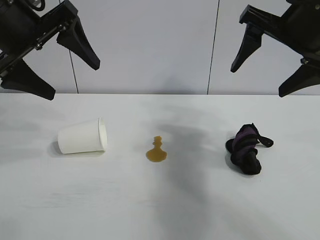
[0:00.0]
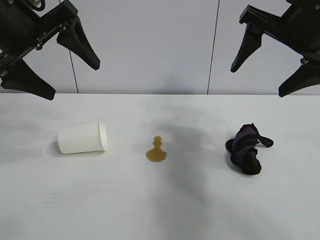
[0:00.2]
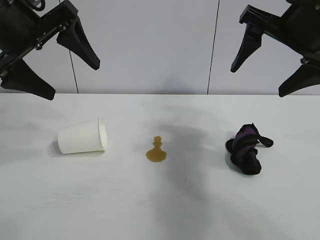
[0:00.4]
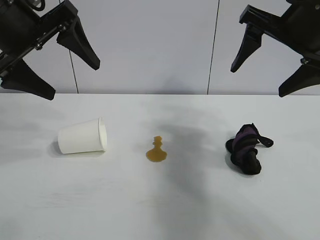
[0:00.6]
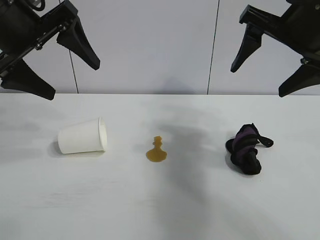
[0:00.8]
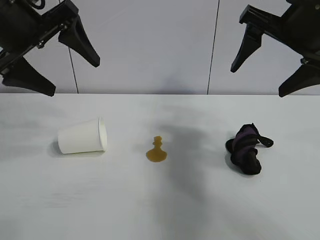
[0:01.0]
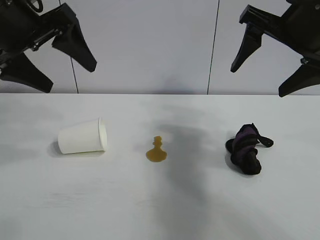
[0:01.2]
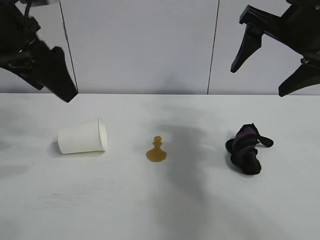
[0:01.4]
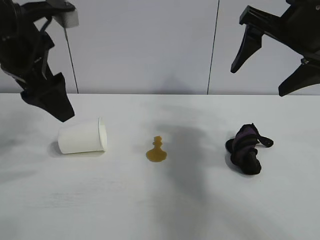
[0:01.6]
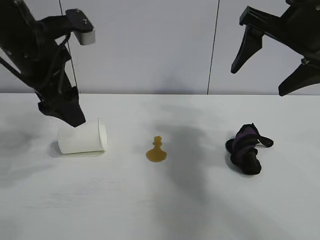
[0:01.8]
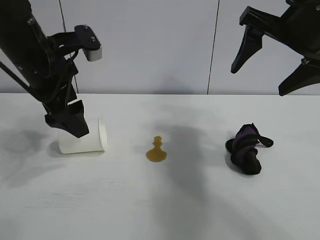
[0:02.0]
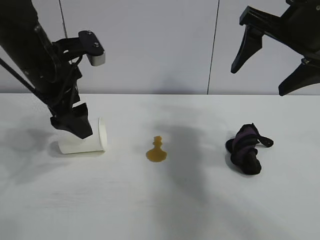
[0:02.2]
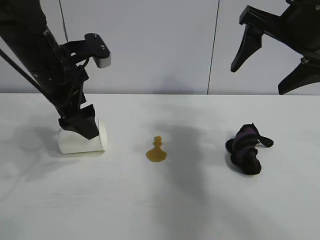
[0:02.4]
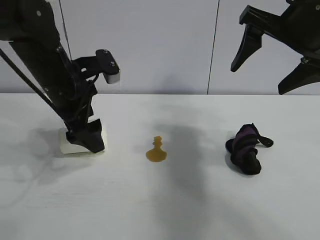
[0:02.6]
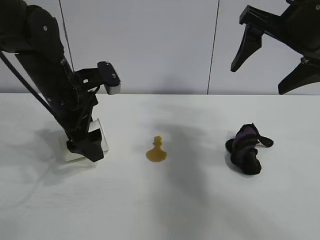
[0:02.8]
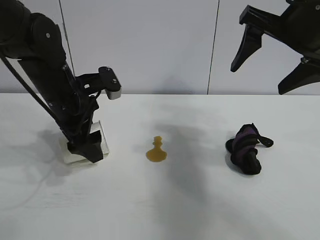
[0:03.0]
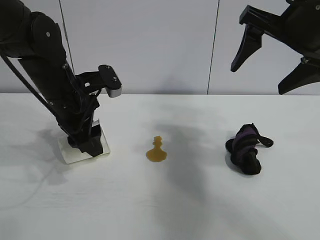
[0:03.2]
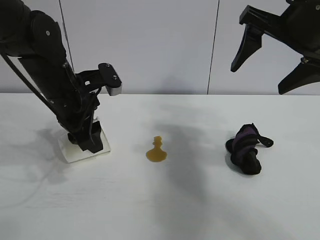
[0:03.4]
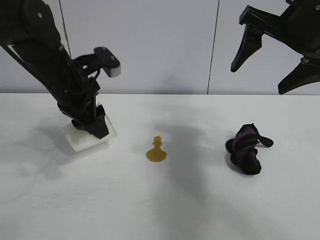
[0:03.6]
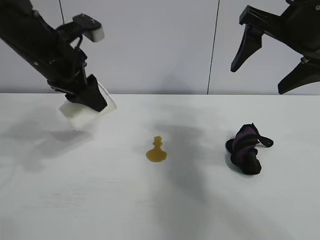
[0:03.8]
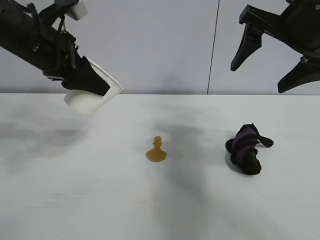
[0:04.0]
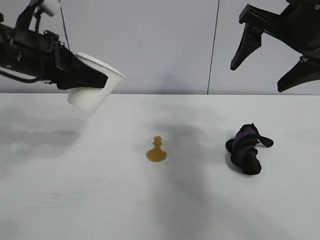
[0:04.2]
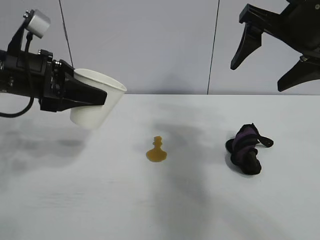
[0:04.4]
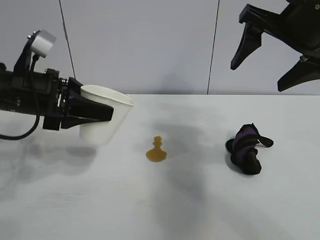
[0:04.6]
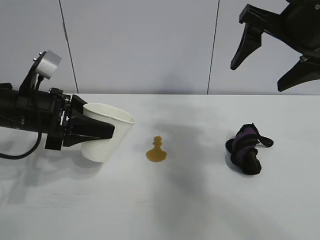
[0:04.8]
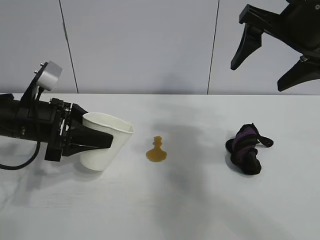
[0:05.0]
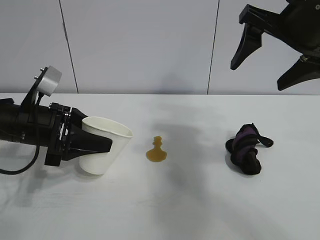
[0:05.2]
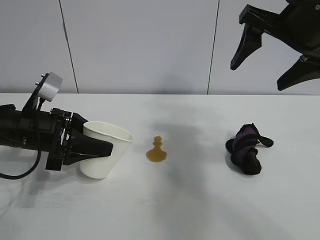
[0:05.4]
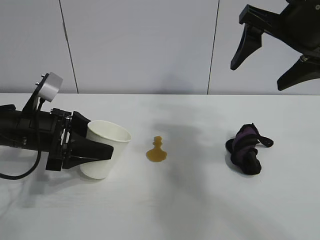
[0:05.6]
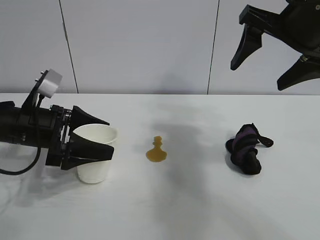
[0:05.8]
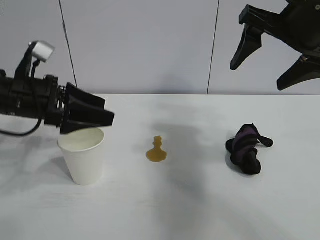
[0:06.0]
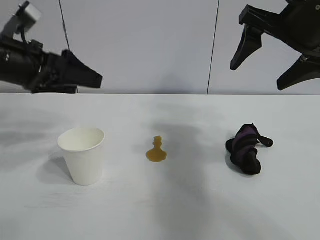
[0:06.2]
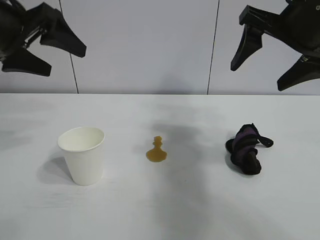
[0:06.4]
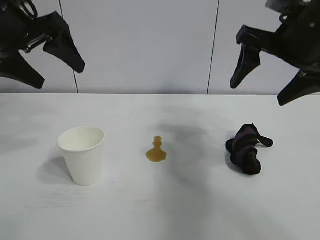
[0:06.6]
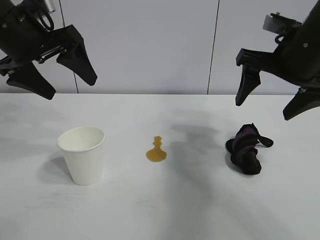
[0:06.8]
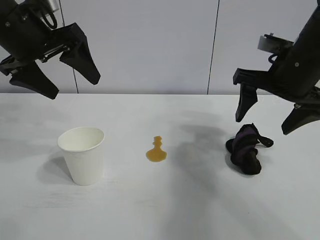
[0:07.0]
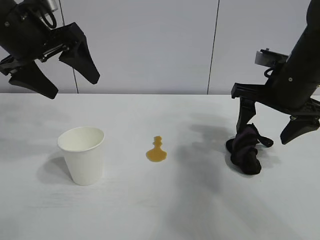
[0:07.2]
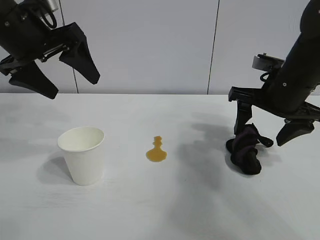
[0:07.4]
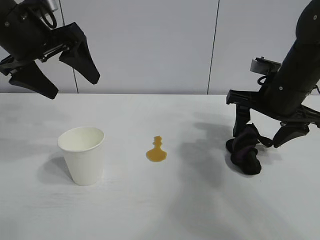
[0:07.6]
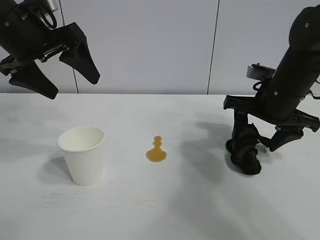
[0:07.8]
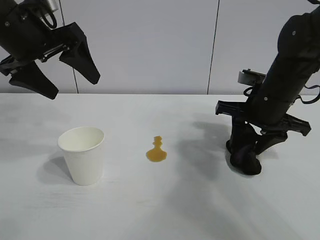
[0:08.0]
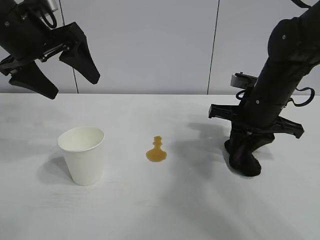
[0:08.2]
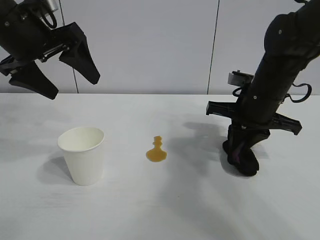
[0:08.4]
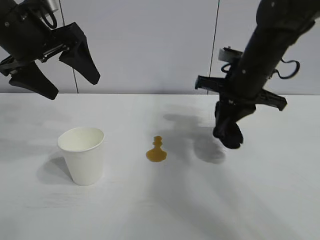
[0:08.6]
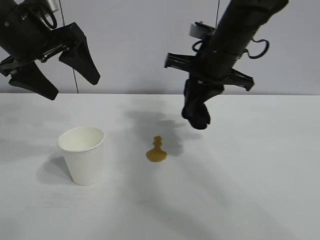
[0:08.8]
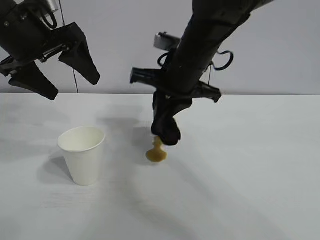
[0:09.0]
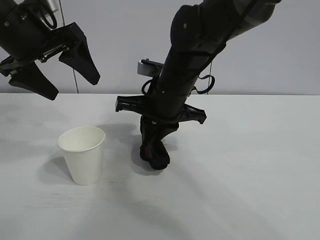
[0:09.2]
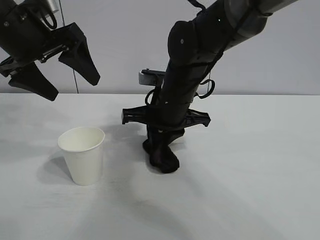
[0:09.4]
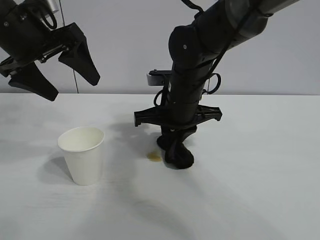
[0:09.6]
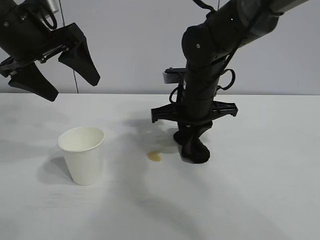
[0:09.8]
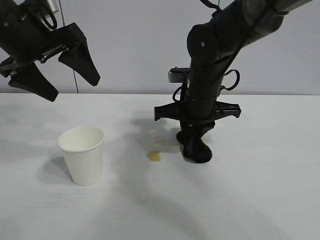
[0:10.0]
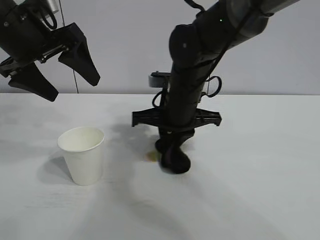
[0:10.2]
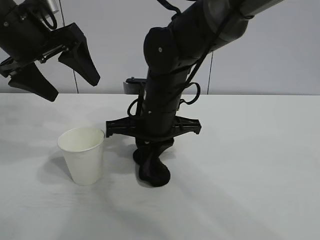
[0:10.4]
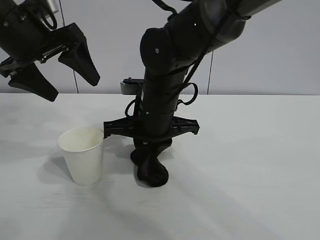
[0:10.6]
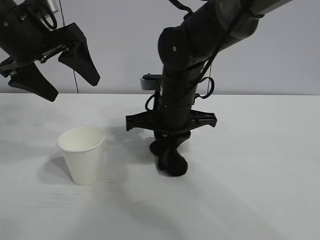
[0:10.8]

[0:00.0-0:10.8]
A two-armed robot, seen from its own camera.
Task of the whole recording: the left gripper pick up the fallen cup and place it upright, the right gripper grasp the black rag and wipe the stain on the table, the right gripper put the black rag back in its original position.
Step, 0:01.0 to 0:03.2: Grasp the paper cup with left gripper.
Step, 0:03.6 to 0:05.8: Stand the paper cup upright with left gripper.
Step, 0:06.2 to 0:08.2: Grasp the rag with right gripper.

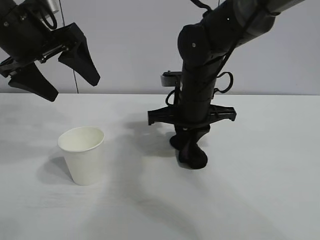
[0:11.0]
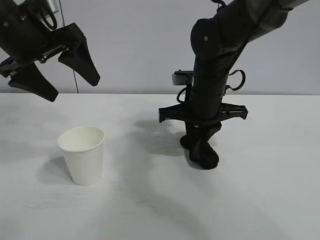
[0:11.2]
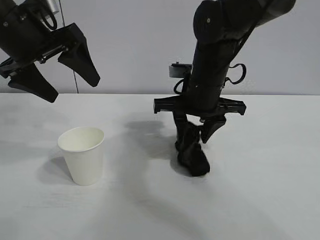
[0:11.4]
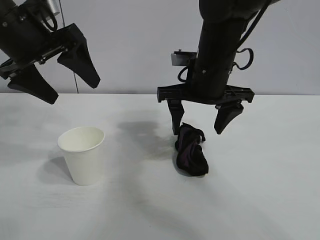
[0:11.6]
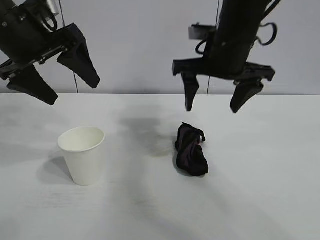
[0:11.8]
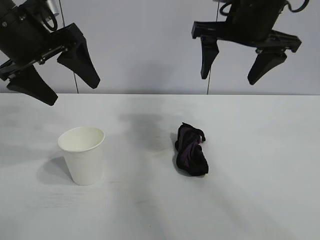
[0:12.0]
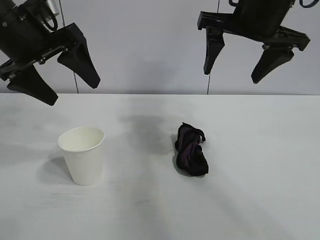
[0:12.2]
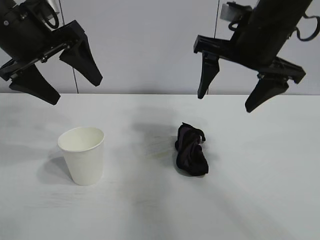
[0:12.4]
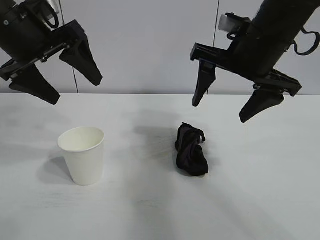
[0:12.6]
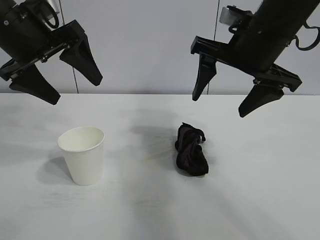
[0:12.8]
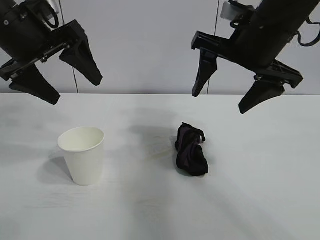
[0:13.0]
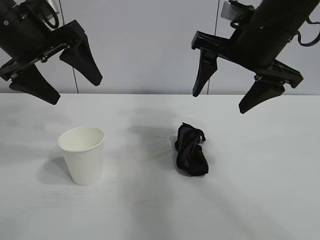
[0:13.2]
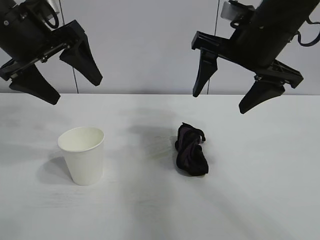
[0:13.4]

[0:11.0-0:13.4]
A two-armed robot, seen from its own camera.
Task of the whole recording: the left gripper pick up the fallen cup and place it upright, the right gripper grasp the black rag and wipe the stain on the table, the right gripper put the black rag back in its original position.
Step, 0:11.2 to 0:11.4: Place the rag on the table with right gripper.
